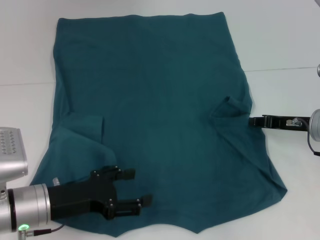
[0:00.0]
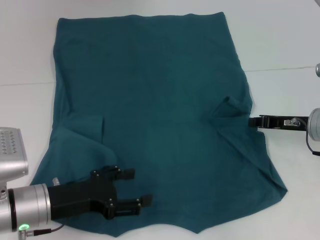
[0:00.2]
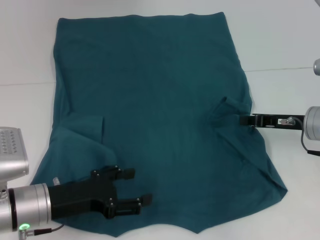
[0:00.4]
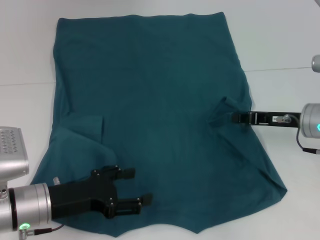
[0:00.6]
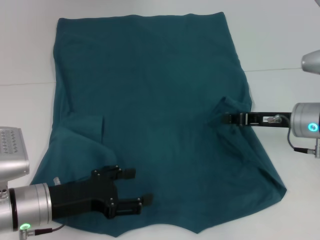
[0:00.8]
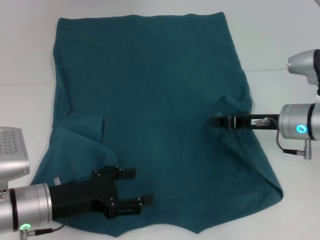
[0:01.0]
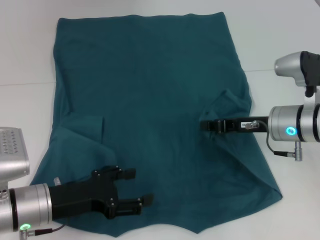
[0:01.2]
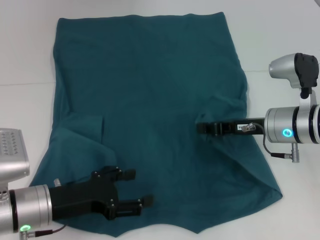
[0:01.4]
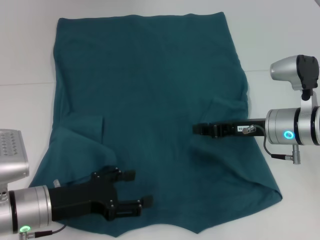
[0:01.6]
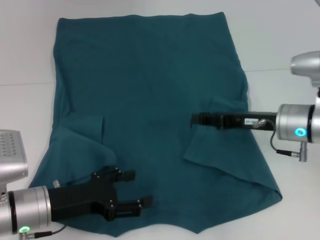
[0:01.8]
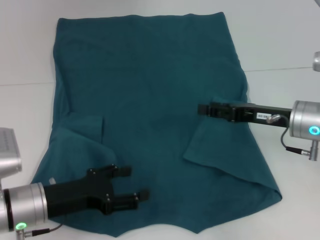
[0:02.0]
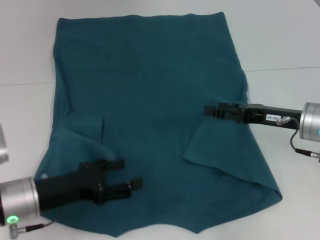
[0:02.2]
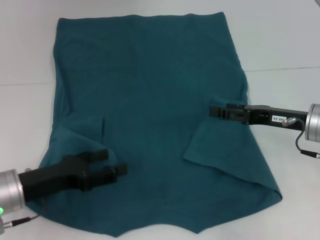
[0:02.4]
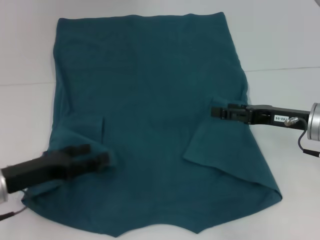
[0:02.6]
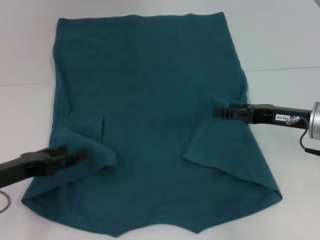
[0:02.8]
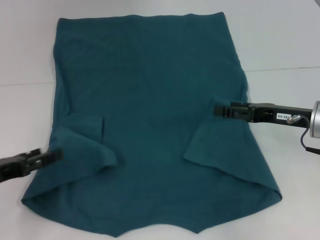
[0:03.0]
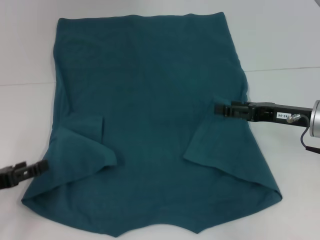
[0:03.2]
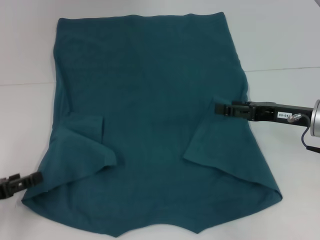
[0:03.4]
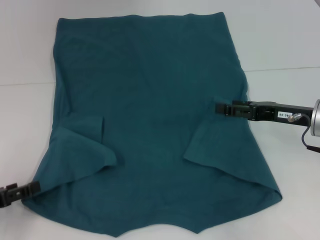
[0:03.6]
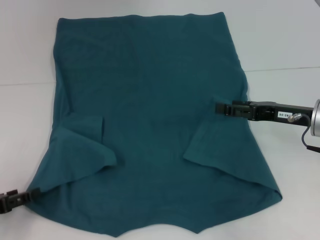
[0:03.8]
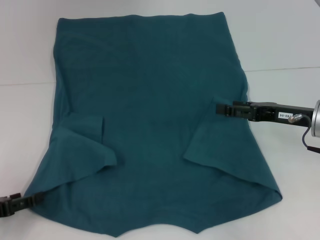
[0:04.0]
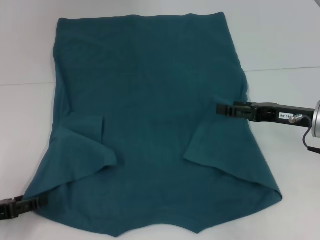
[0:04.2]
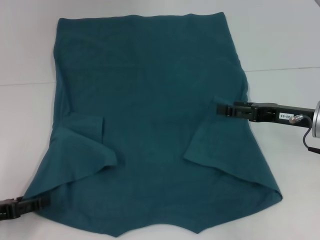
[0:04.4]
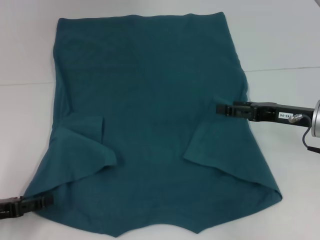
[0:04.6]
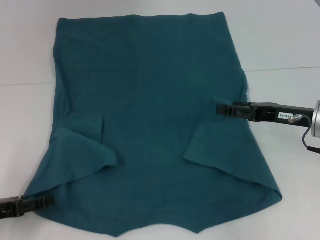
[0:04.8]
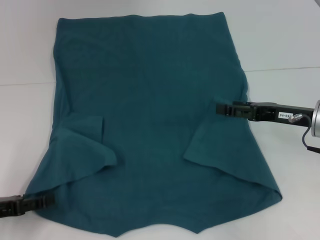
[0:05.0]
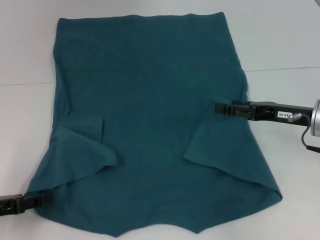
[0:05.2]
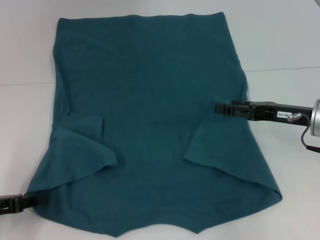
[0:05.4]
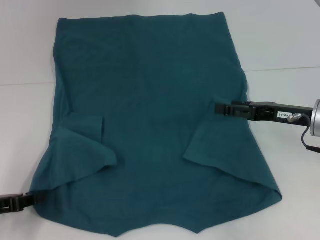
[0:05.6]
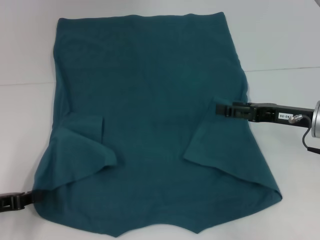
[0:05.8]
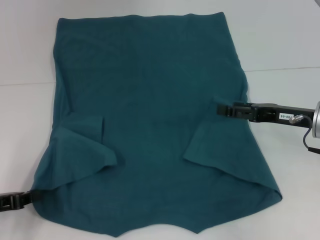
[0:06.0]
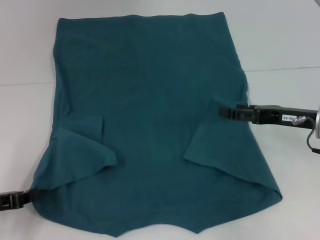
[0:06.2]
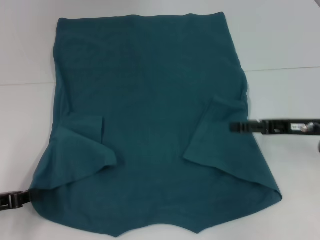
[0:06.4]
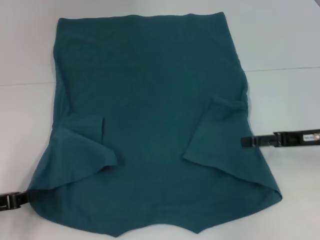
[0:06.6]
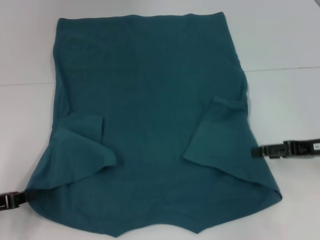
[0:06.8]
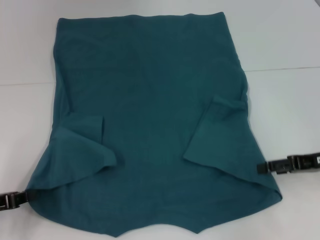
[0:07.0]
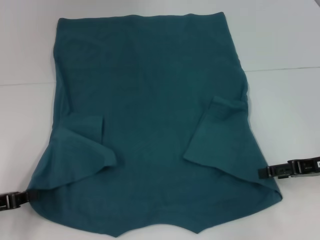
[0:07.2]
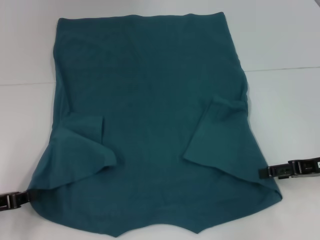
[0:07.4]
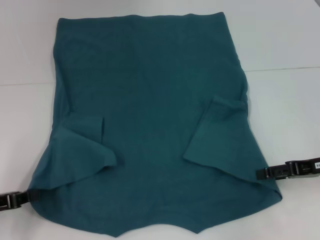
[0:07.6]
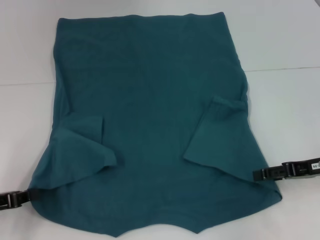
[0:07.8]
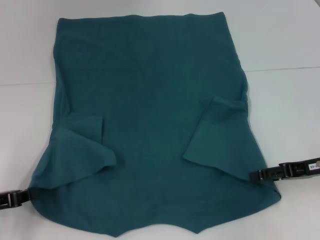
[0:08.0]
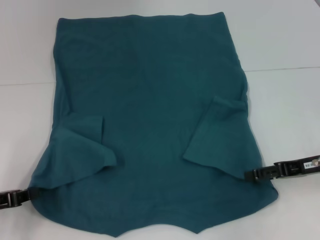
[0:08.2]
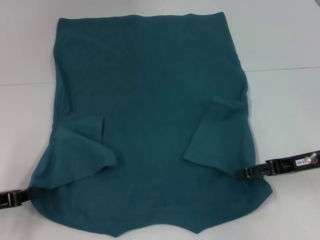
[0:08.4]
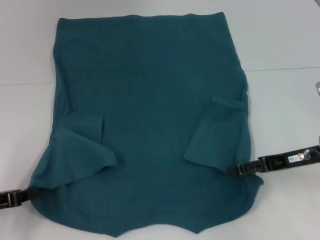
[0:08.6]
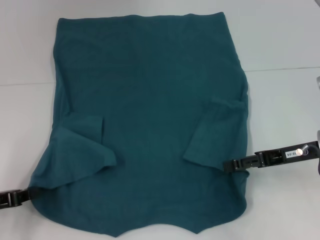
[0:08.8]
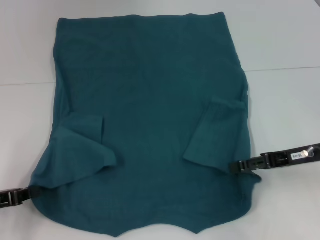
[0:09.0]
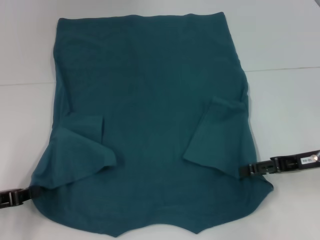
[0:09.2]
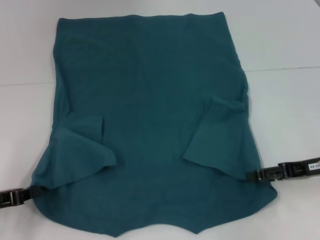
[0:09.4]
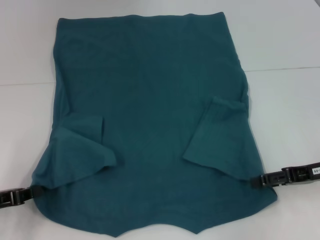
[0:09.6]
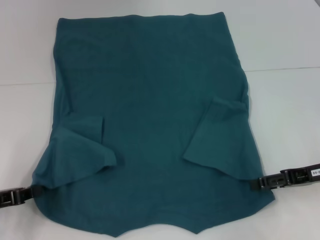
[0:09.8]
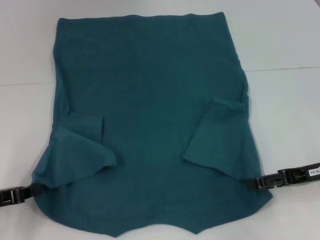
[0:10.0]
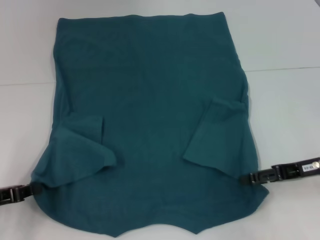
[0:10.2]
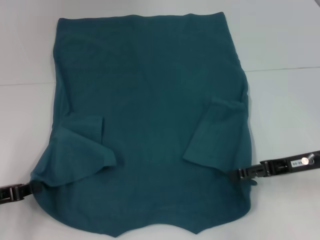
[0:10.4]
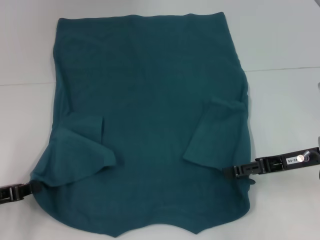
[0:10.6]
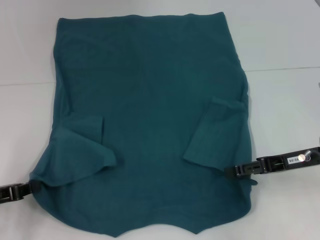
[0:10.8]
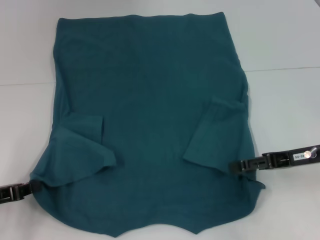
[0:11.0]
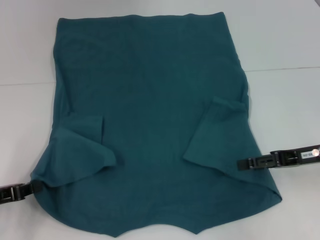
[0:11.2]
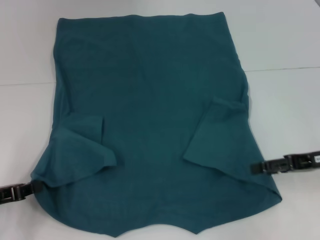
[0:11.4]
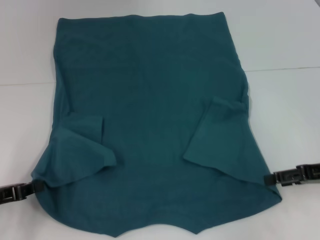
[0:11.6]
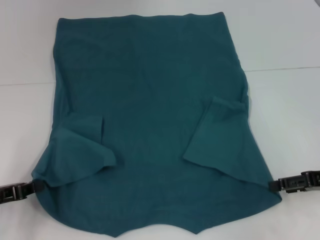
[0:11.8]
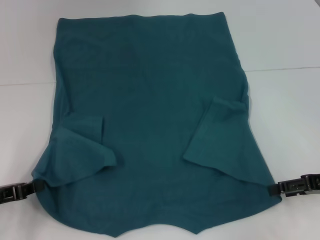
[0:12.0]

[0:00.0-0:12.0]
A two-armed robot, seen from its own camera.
Step, 0:02.0 to 0:06.0: Grab the bottom left corner with your left hand.
0:00.0 to 0:01.6: The right gripper travels to the left by roughly 10 cm.
0:01.6 to 0:03.0: The left gripper moves to the left, some 10 cm. The right gripper heads to the right, covering about 5 cm, and opens up.
0:03.0 to 0:04.4: The grippers move only a little.
0:04.4 to 0:06.0: The left gripper closes.
0:06.0 to 0:07.6: The right gripper ends up some 5 cm from where it was.
0:07.6 to 0:10.4: The grippers stay close to where they were, moving slightly.
0:10.4 to 0:12.0: The right gripper is displaced to the right by approximately 5 cm.

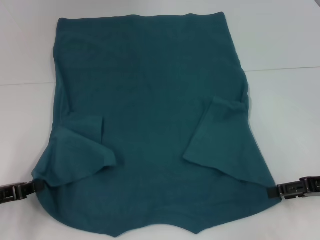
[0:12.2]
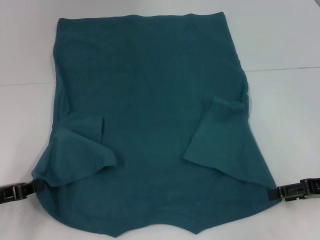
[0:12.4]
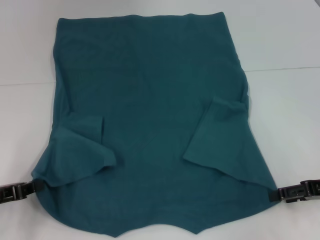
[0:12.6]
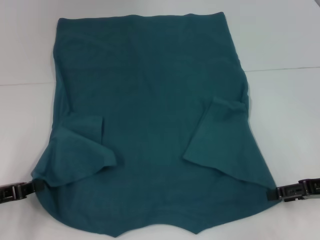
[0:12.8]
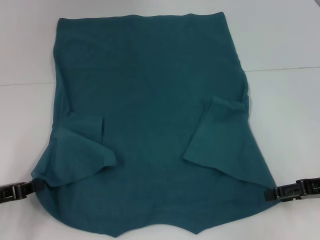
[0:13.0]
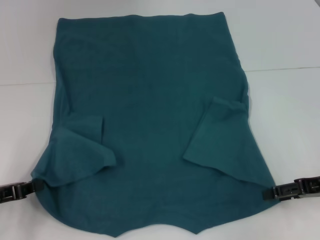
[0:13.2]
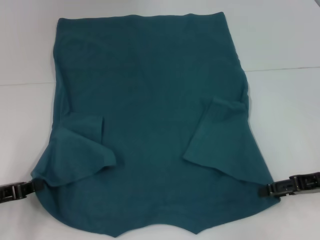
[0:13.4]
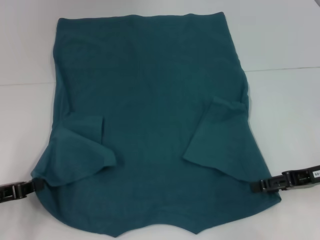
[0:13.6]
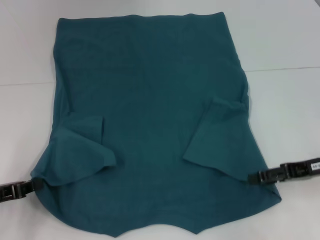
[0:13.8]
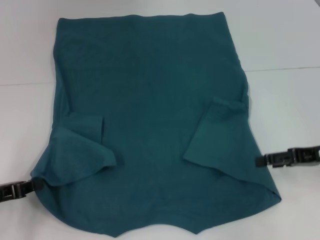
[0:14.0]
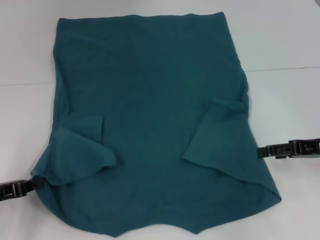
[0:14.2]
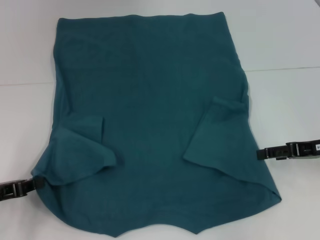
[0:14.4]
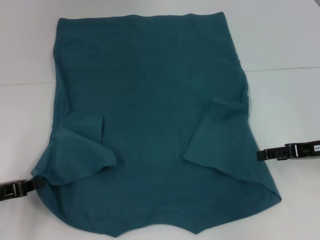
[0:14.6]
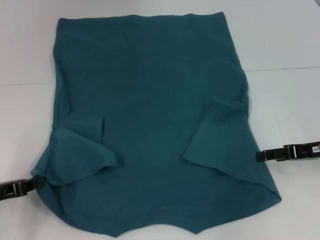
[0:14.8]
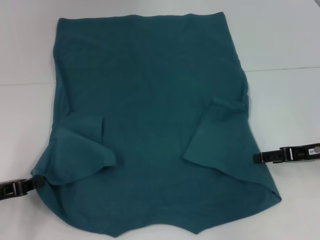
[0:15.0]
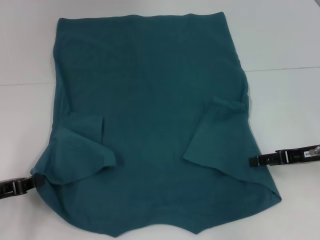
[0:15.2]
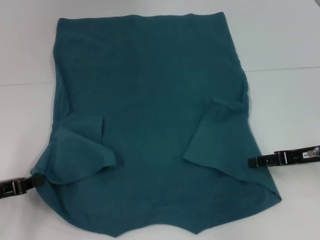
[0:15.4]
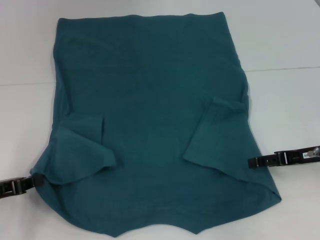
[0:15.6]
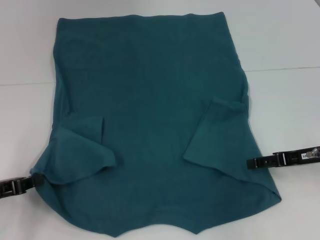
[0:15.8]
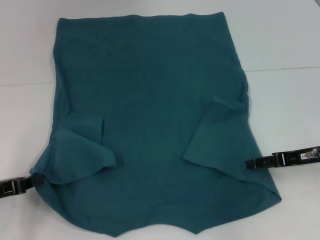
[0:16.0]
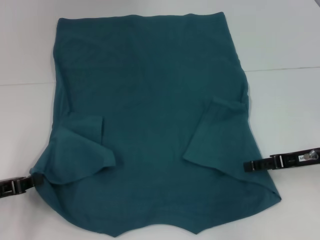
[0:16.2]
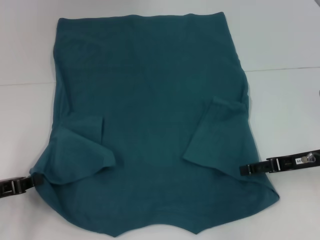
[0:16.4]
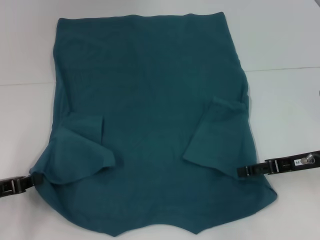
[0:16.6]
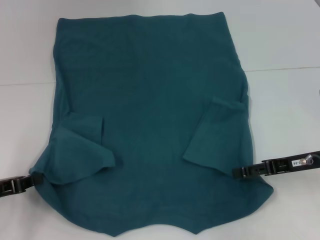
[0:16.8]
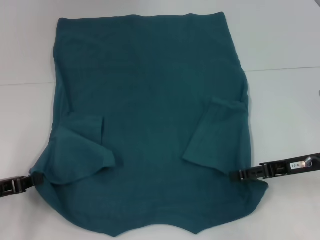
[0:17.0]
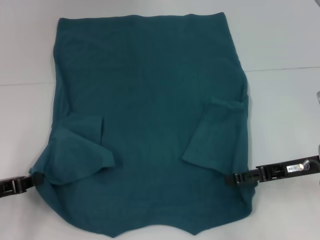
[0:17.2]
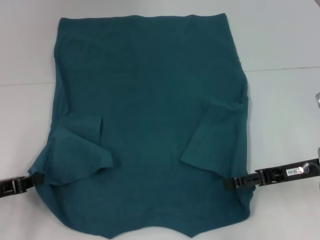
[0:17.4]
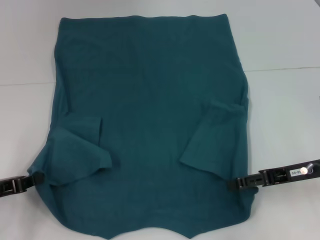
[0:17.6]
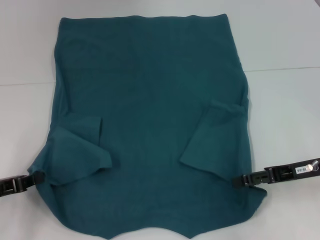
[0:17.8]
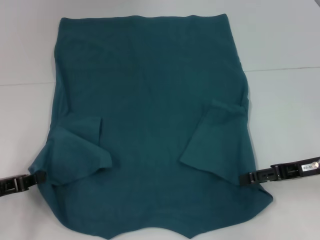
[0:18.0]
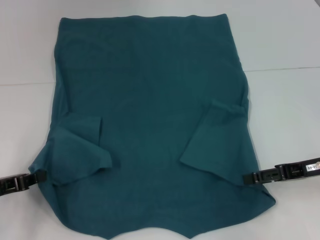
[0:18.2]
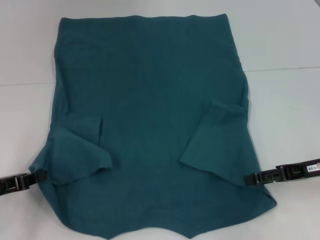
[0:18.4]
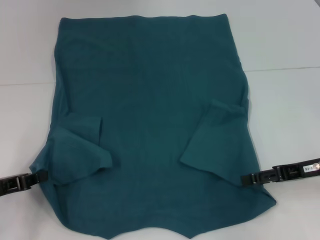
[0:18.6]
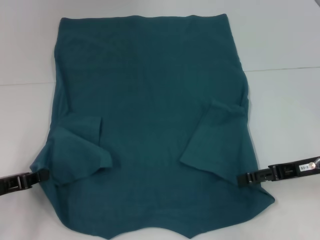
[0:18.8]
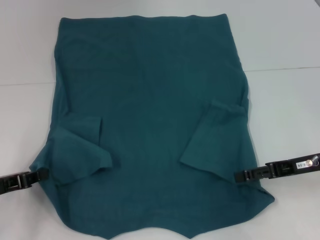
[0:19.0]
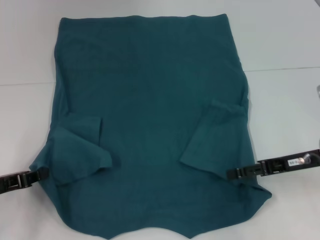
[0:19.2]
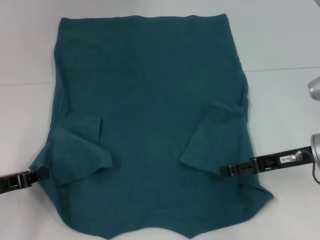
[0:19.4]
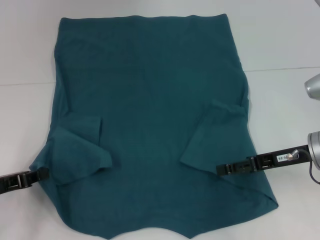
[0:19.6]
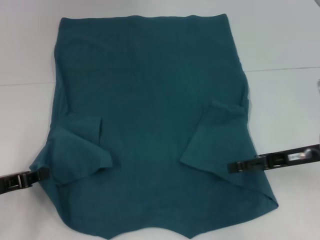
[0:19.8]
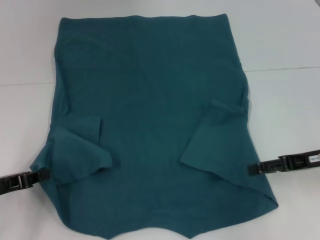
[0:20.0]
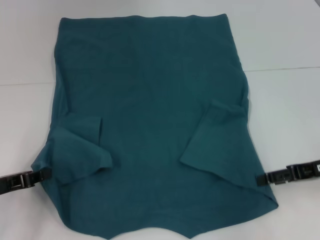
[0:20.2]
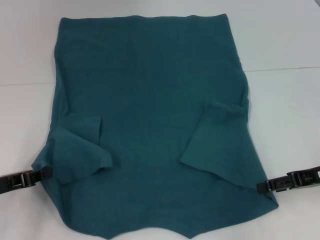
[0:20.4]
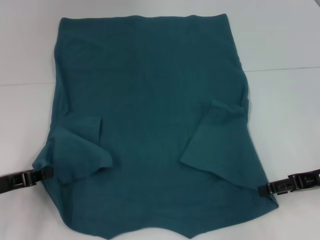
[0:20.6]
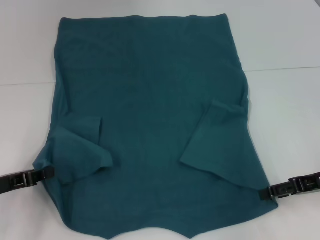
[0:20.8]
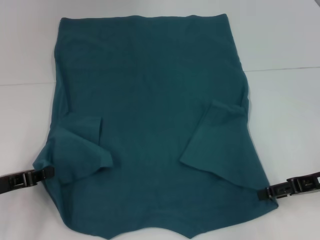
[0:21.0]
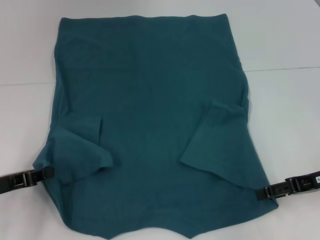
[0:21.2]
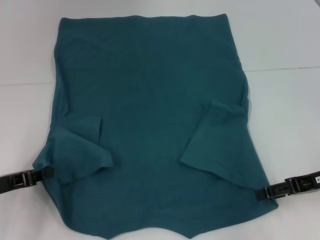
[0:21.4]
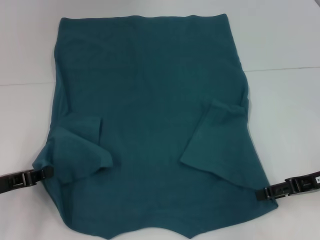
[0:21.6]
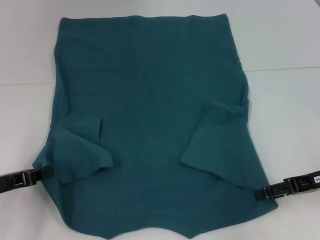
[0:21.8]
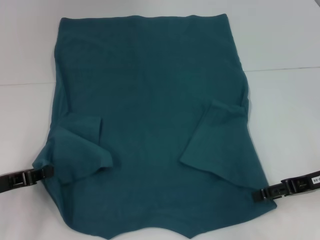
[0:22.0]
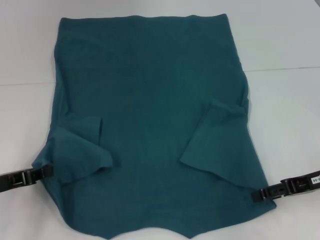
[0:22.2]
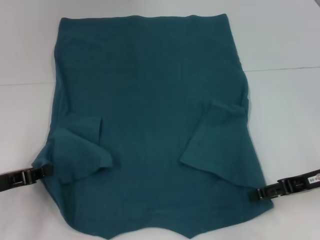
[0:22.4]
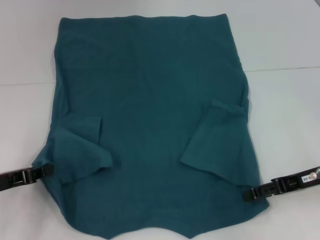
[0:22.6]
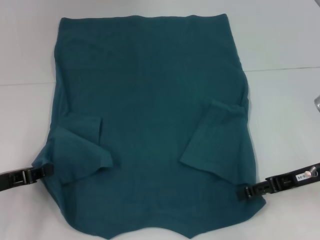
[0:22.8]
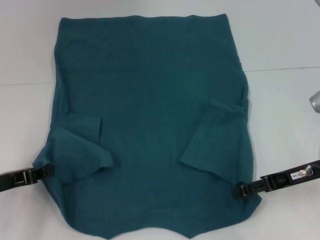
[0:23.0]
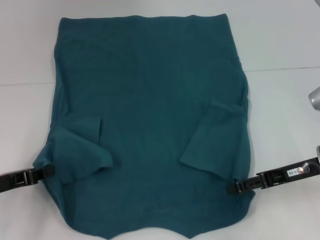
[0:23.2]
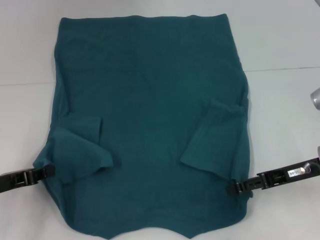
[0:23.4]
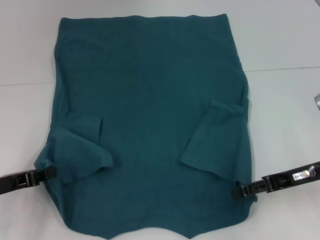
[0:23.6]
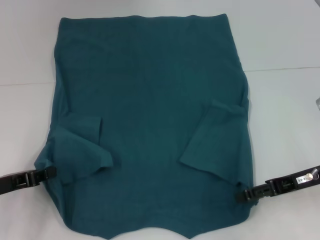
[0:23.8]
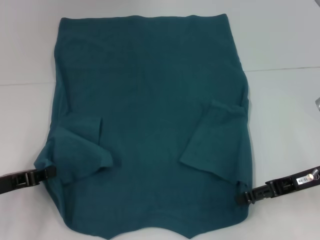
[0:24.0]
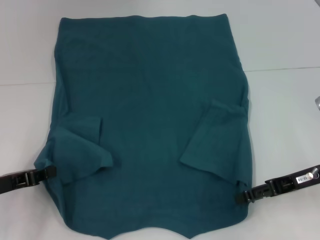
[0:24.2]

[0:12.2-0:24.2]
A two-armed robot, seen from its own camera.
0:12.2 to 0:16.6: The grippers make only small movements.
0:16.6 to 0:24.2: The grippers make only small movements.
